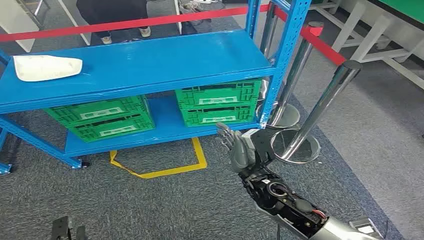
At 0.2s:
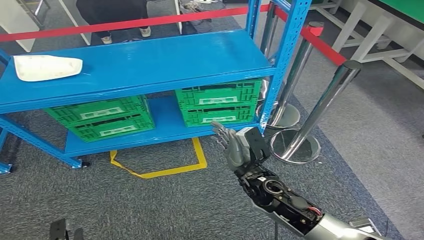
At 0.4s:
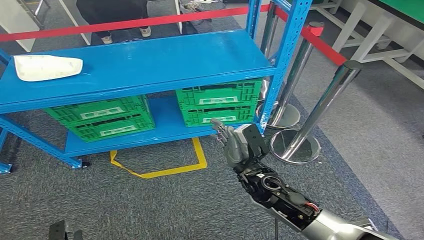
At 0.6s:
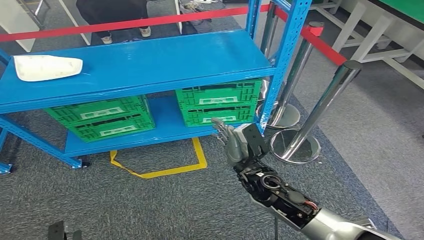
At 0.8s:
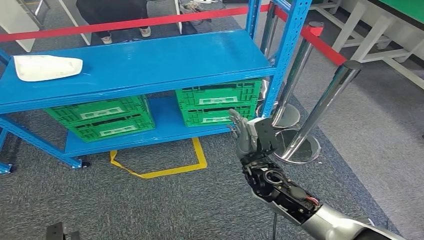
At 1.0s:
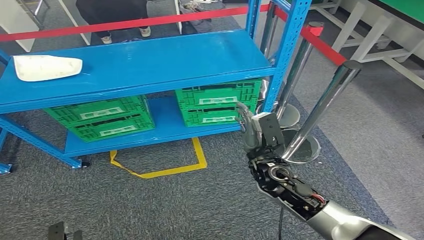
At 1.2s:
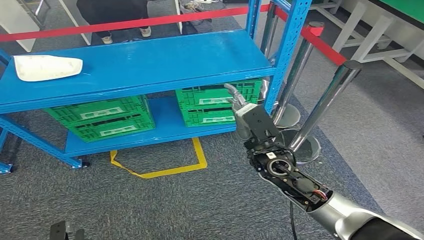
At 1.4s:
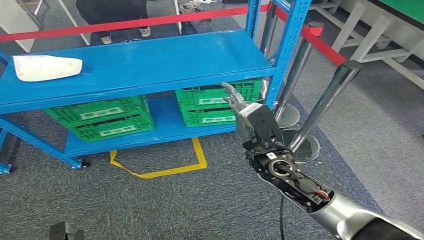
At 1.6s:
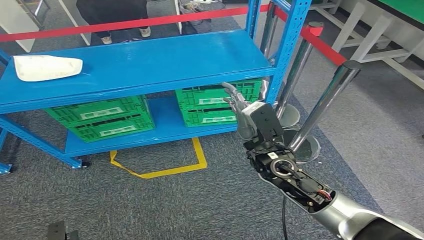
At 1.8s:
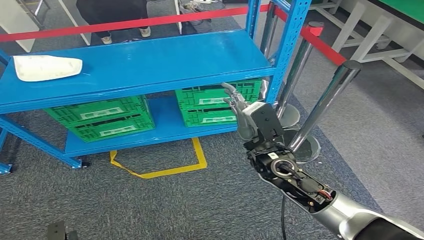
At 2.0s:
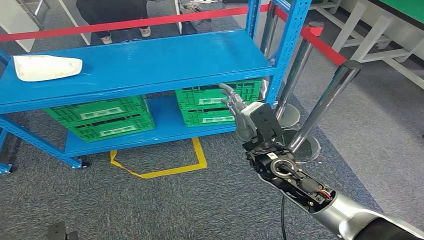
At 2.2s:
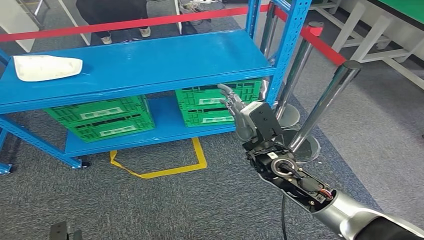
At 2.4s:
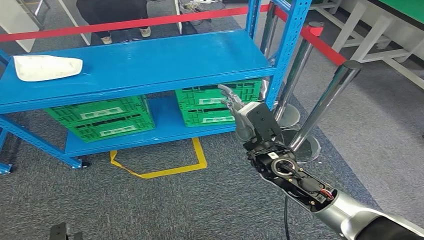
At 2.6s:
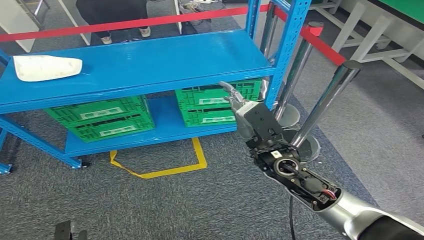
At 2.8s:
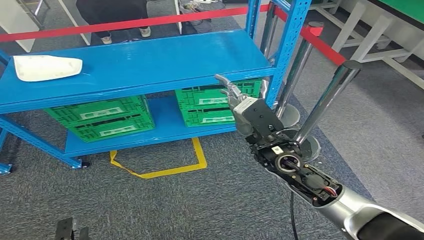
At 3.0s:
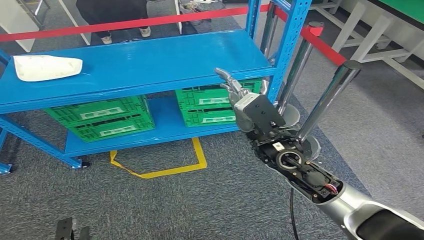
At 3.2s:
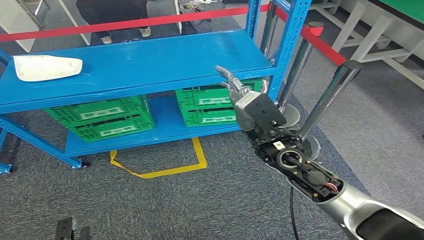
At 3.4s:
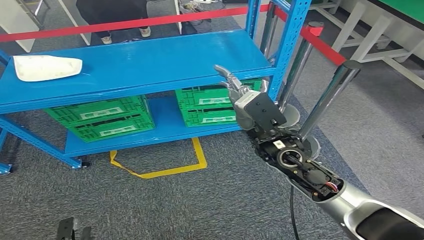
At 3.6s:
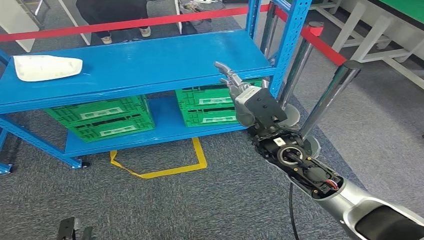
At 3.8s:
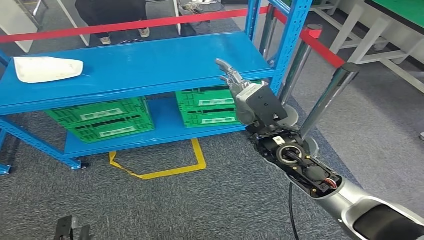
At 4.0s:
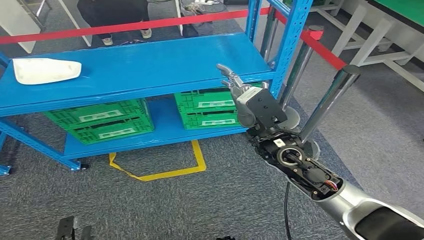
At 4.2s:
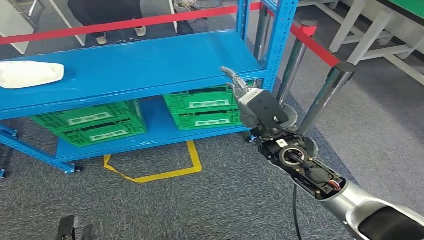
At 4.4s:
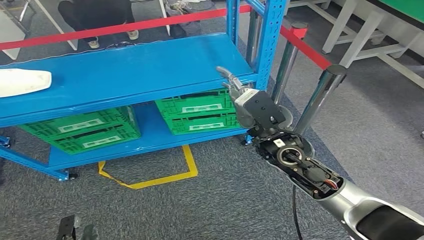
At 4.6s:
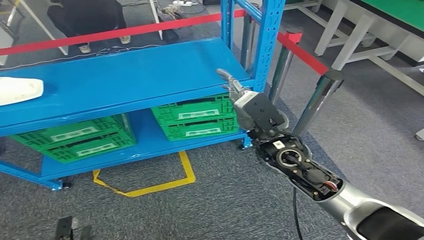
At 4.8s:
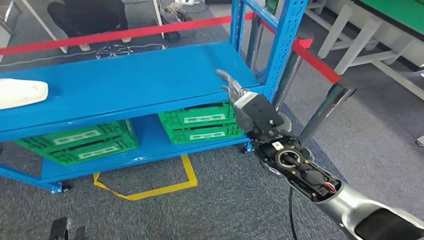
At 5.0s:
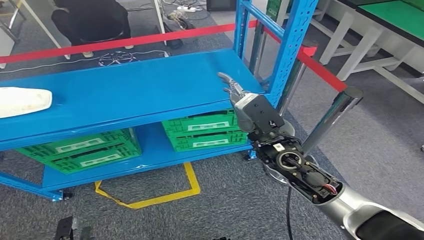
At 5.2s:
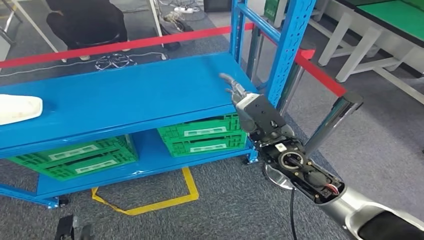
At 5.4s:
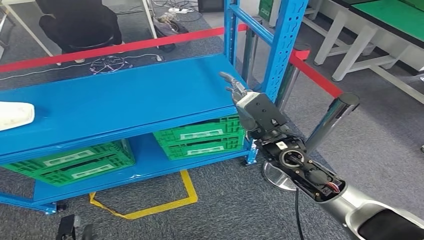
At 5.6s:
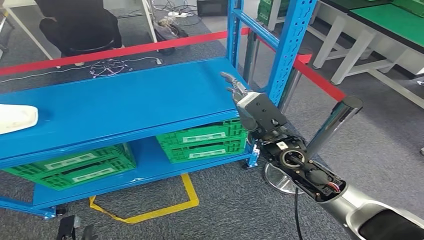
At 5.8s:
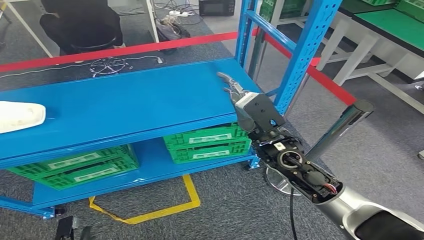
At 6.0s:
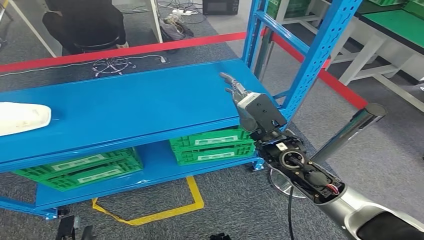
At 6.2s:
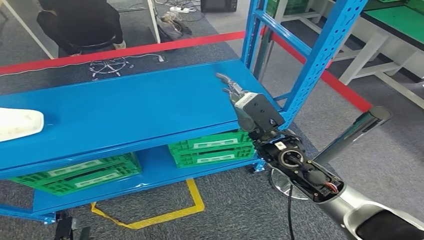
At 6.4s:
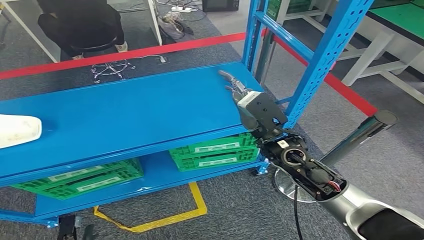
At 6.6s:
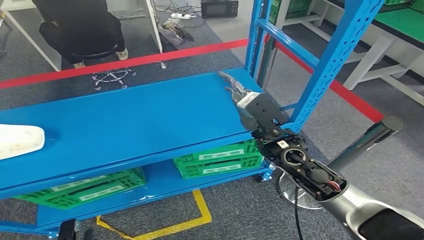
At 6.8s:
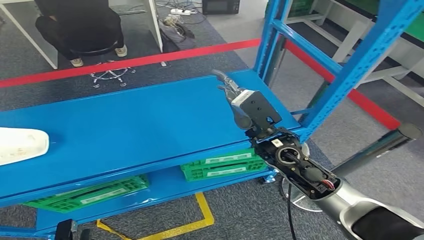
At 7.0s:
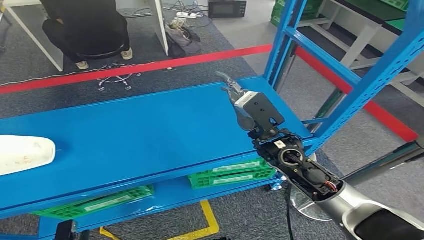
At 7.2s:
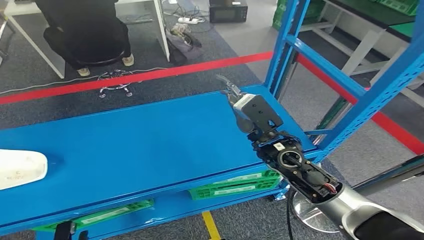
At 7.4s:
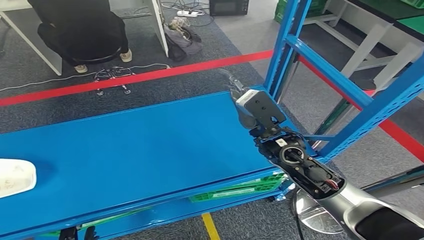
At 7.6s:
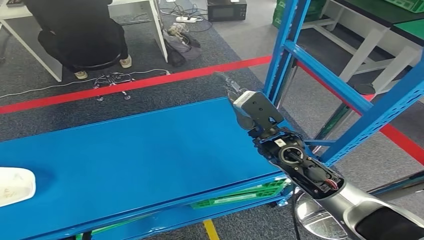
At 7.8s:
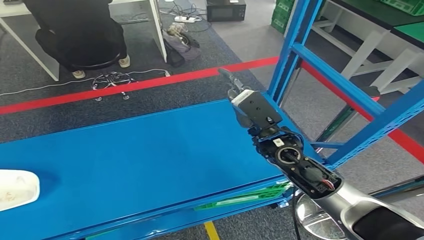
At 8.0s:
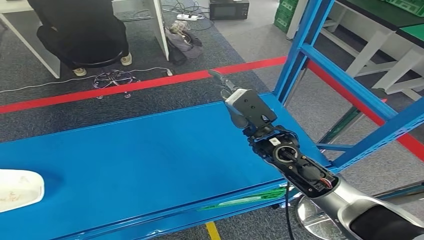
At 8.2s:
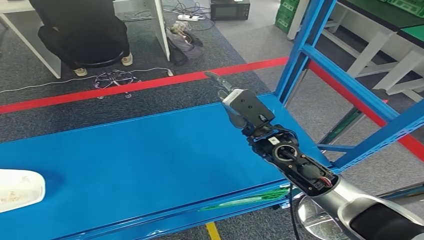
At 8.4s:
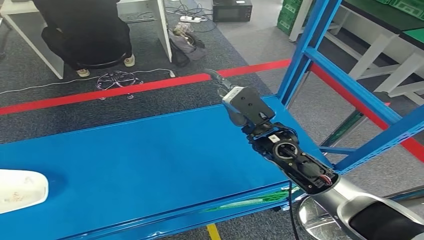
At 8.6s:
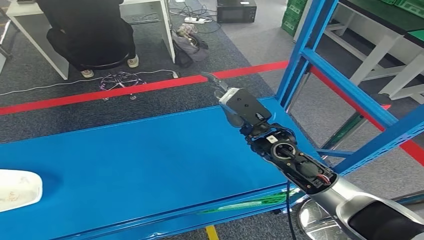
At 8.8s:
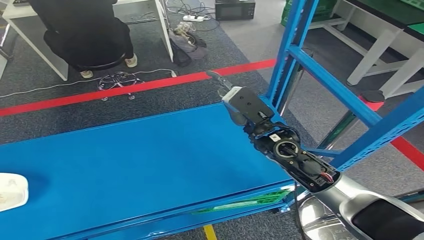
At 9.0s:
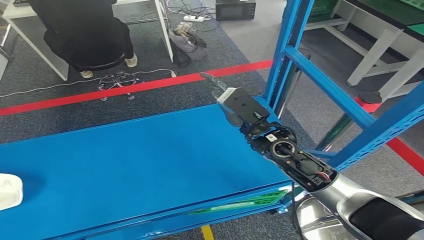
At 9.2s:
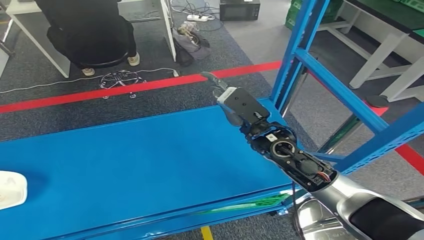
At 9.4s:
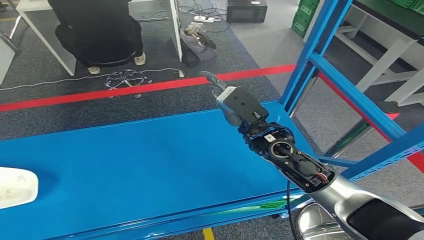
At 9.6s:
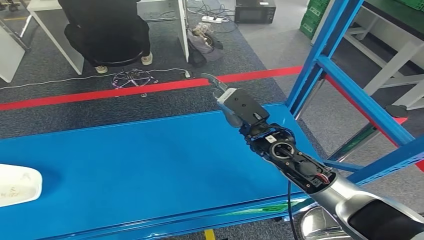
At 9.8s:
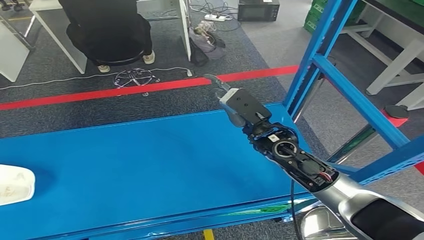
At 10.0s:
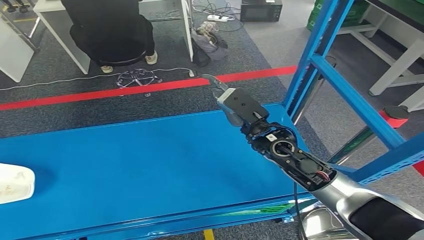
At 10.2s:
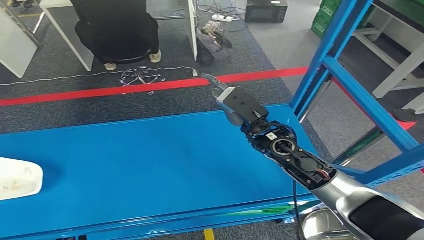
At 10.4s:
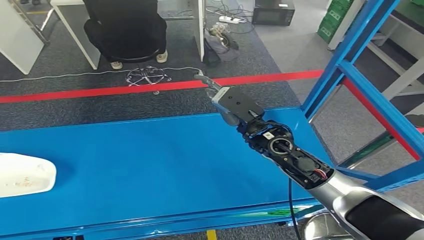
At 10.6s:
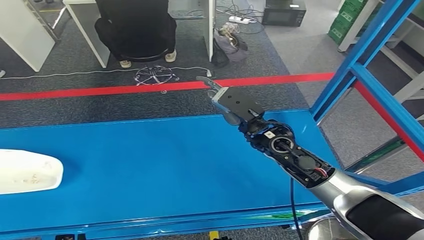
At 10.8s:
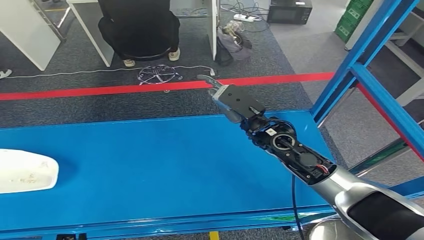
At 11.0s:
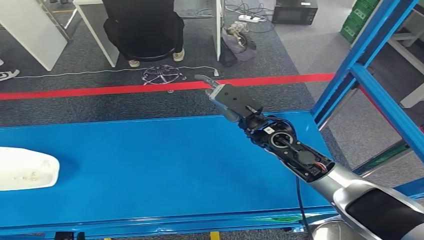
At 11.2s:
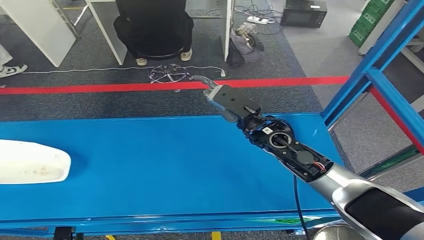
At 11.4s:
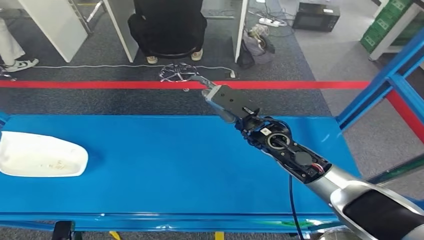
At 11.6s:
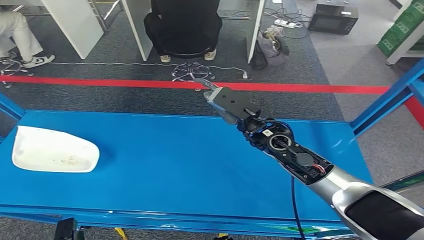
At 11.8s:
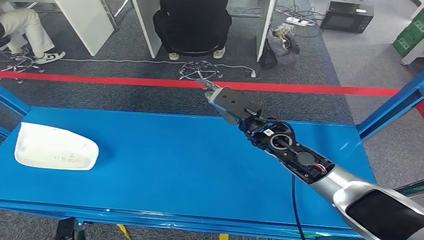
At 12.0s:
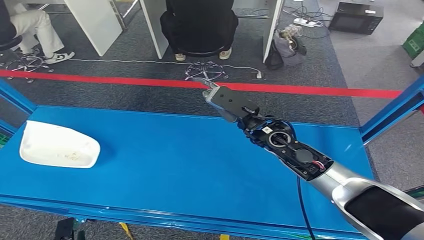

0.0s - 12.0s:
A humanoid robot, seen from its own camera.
1.6s - 3.0s: There are only small adjustments of the hands.

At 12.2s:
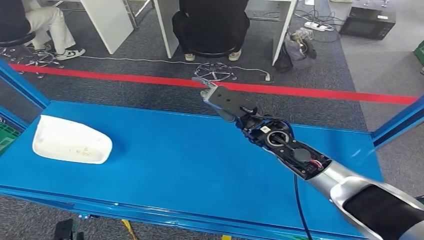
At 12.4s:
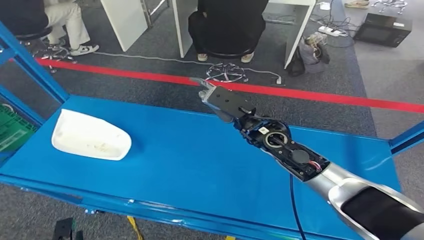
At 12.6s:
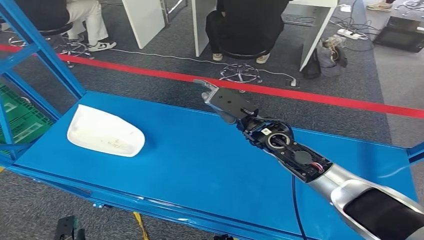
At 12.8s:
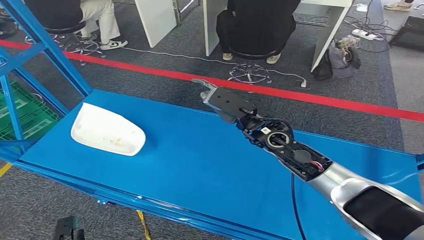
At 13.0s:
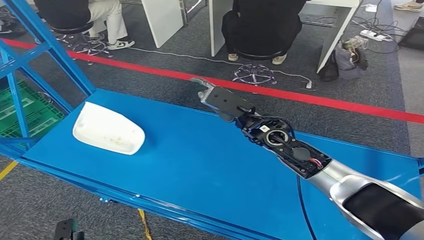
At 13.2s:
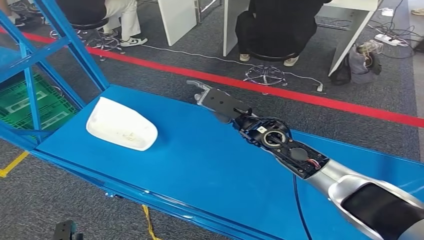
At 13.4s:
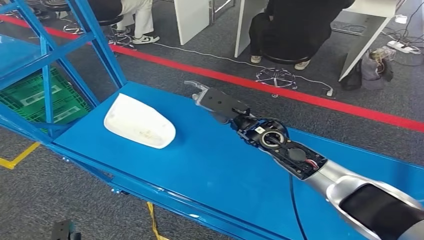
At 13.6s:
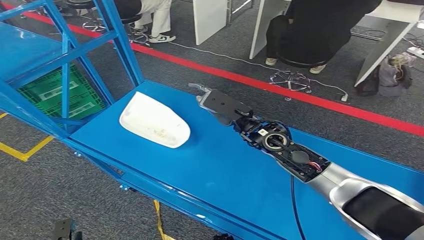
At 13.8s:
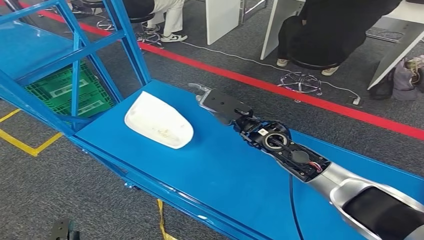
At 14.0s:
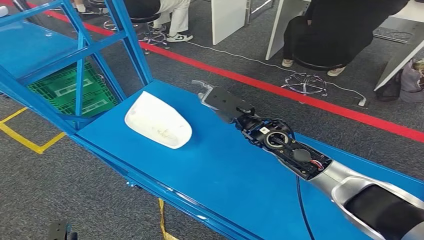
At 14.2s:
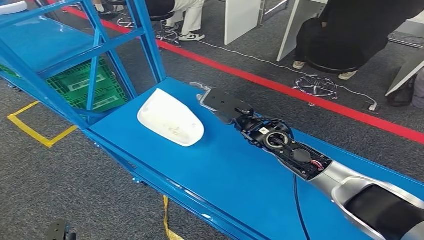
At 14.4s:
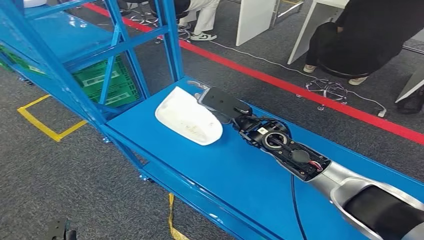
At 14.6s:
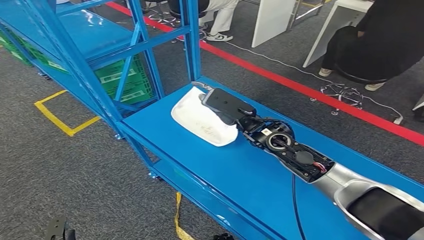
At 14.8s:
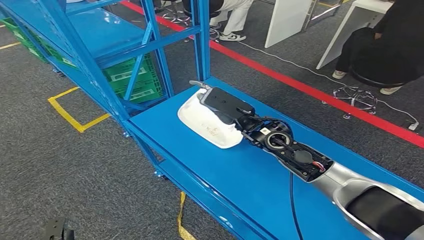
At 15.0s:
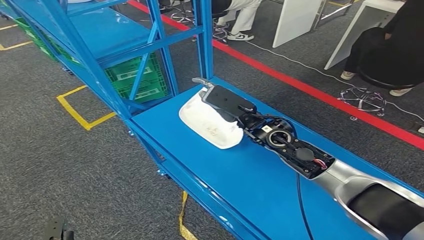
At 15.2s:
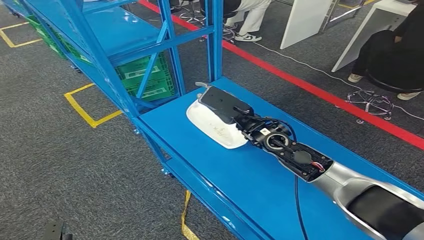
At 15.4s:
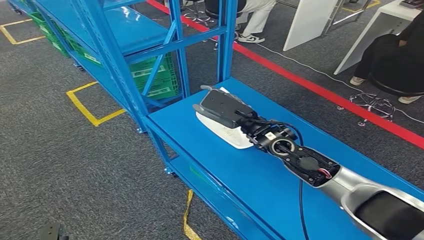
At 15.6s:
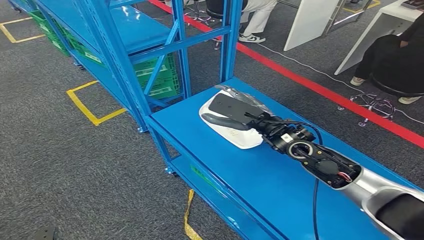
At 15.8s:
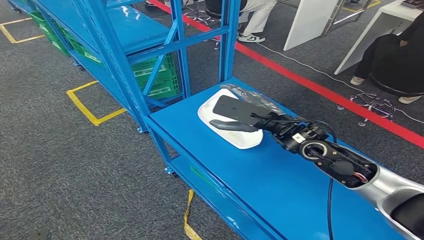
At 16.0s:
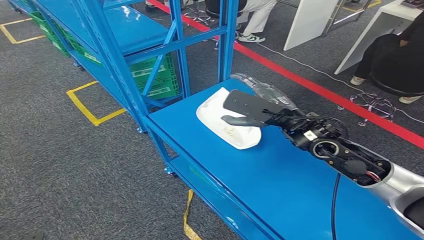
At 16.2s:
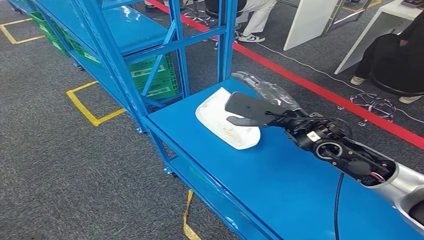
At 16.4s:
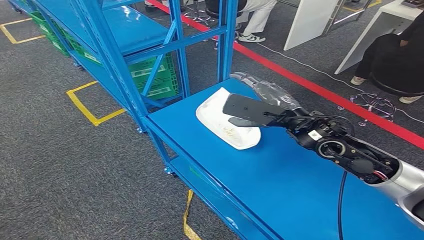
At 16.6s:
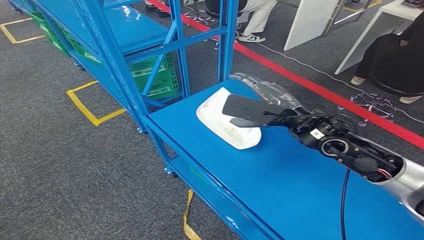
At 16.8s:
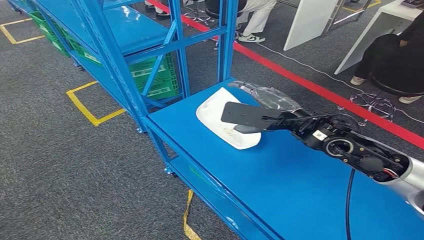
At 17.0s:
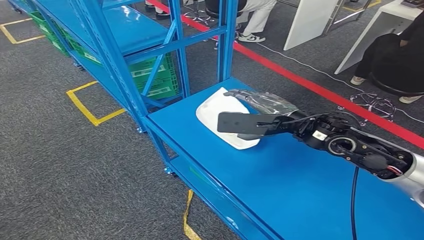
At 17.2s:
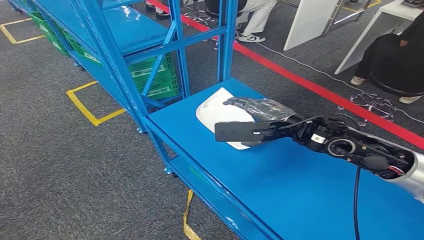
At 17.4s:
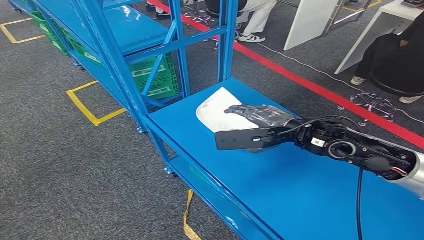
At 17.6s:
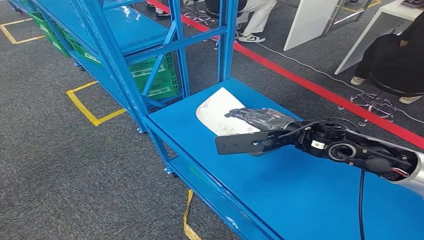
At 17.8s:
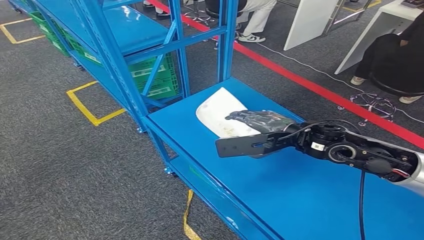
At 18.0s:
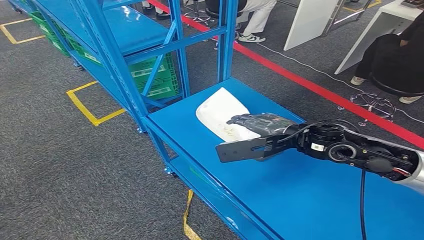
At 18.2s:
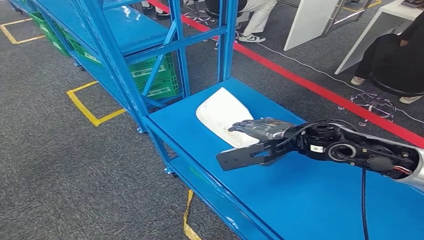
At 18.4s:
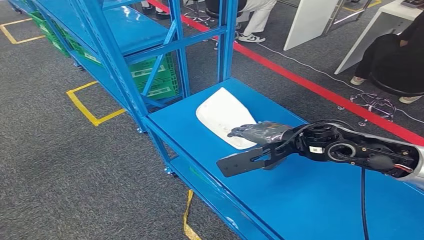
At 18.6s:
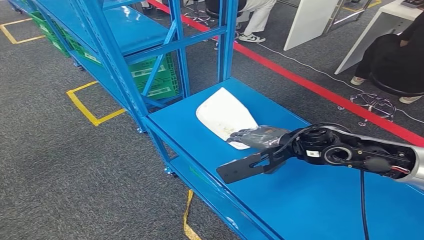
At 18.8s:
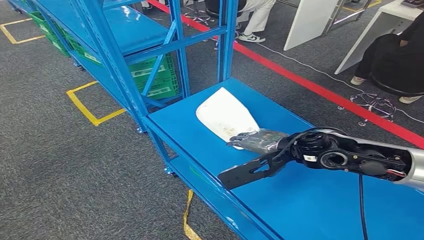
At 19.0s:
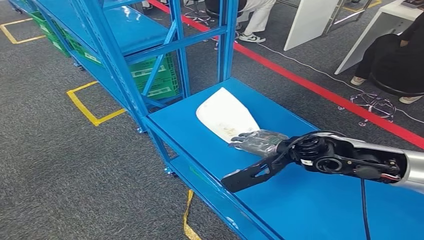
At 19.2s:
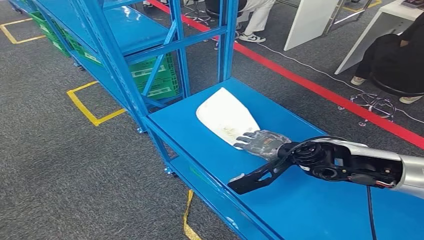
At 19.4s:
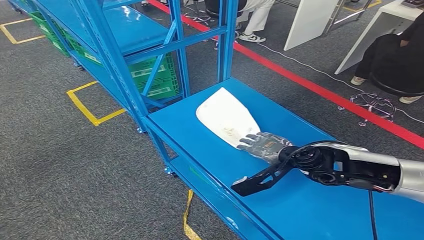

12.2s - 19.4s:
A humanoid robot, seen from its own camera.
18.0s - 19.4s: The right hand heads downward, covering about 5 cm.
